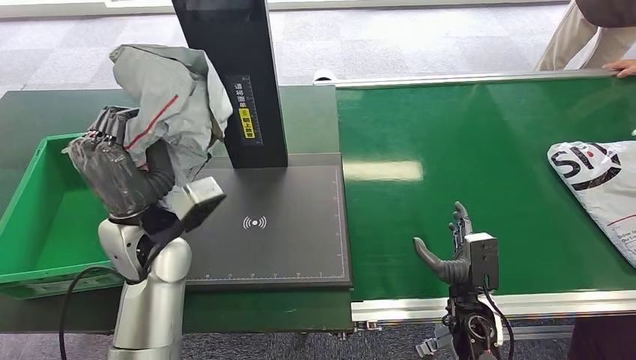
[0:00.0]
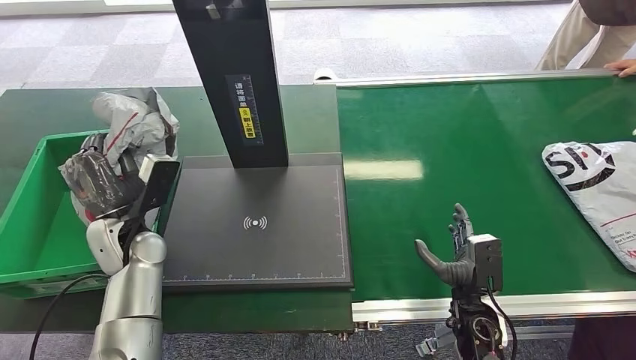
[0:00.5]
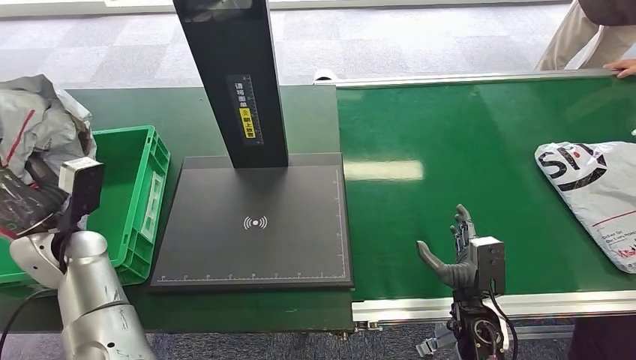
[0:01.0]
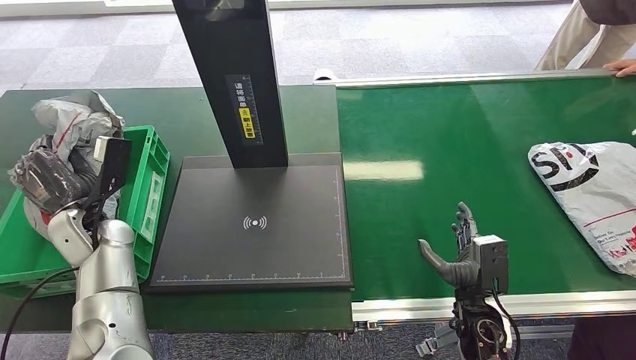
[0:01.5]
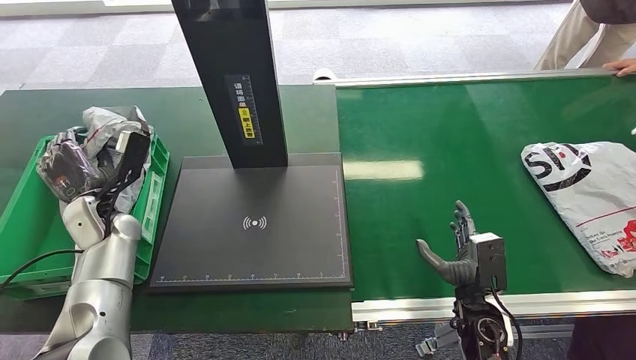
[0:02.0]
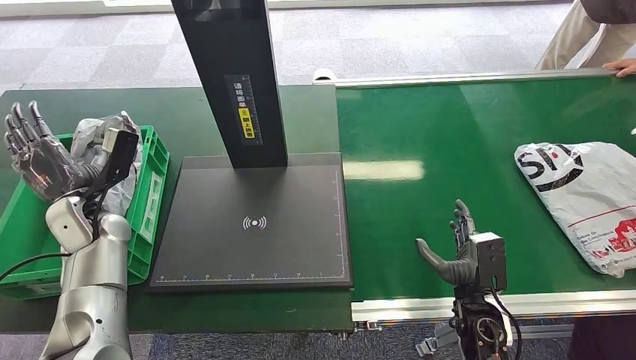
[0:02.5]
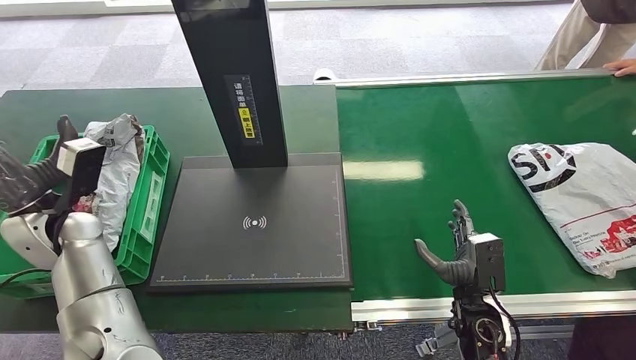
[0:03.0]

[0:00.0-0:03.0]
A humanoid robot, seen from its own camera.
Step, 0:00.0 to 0:03.0: Place the package into the parcel locker.
0:01.5 to 0:03.0: The left hand moves upward, about 5 cm.
